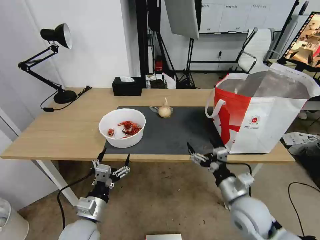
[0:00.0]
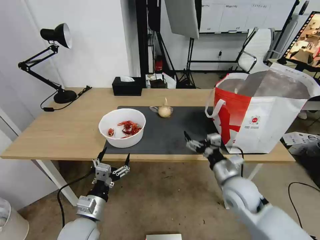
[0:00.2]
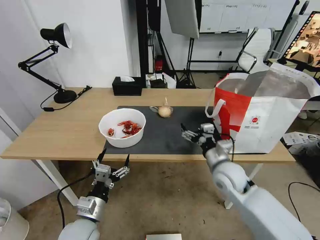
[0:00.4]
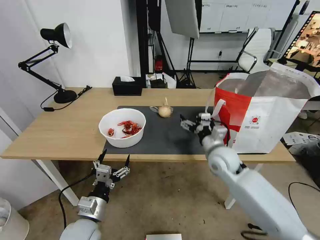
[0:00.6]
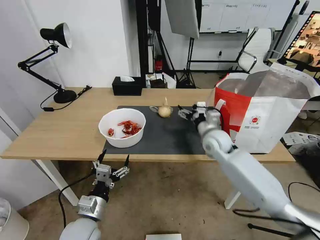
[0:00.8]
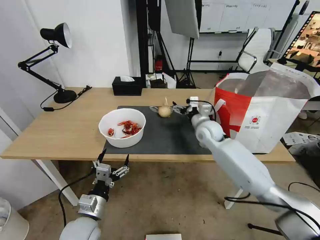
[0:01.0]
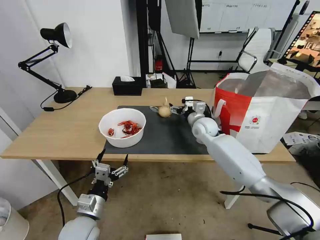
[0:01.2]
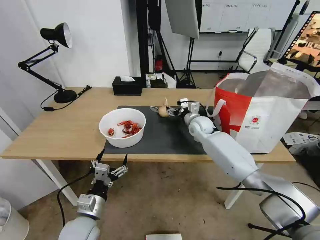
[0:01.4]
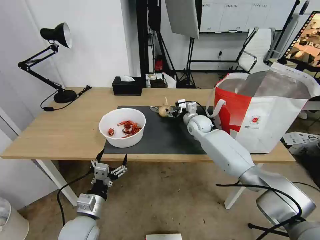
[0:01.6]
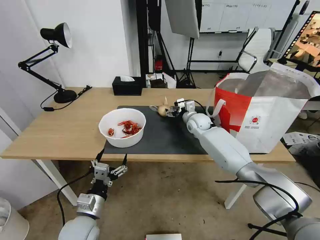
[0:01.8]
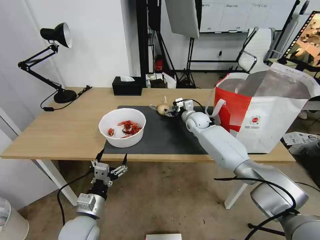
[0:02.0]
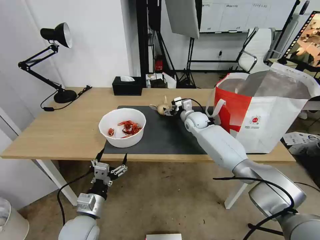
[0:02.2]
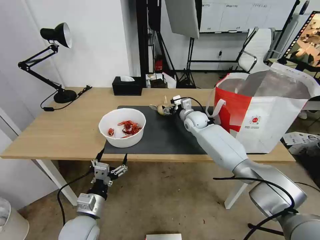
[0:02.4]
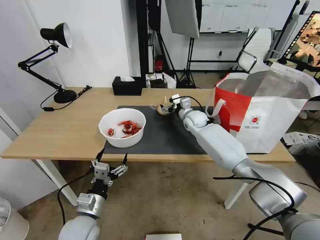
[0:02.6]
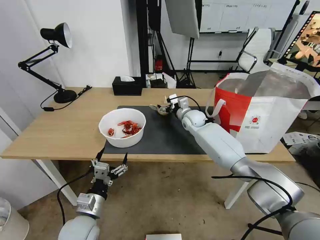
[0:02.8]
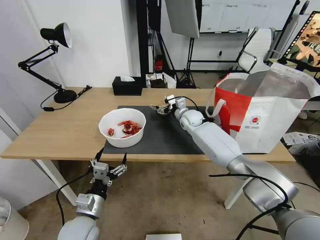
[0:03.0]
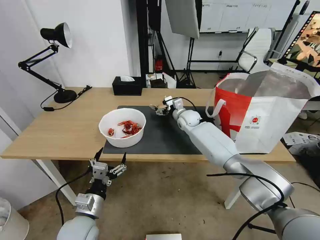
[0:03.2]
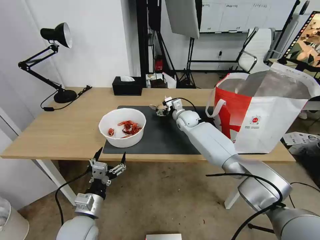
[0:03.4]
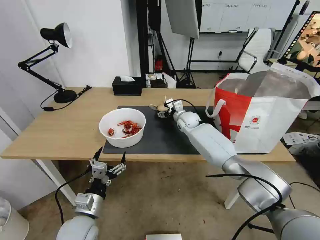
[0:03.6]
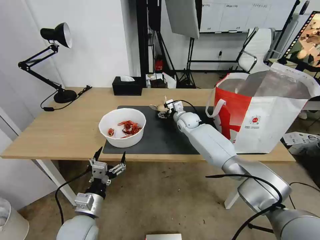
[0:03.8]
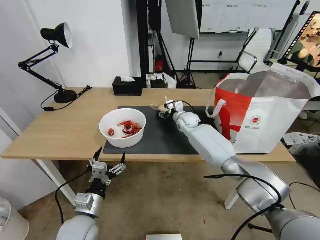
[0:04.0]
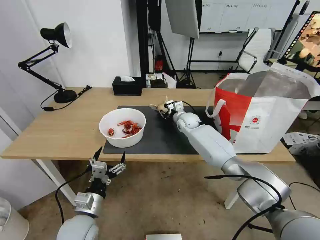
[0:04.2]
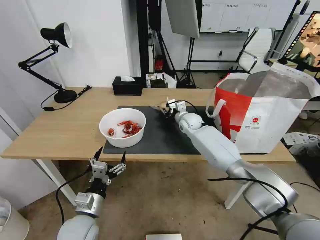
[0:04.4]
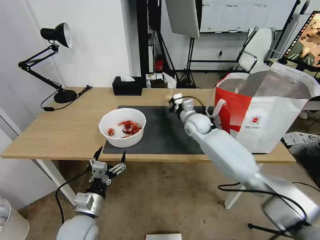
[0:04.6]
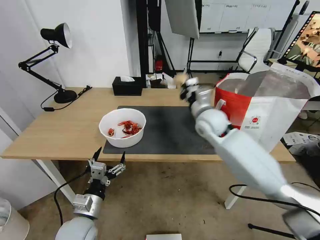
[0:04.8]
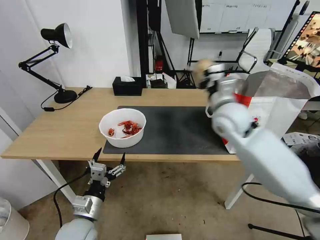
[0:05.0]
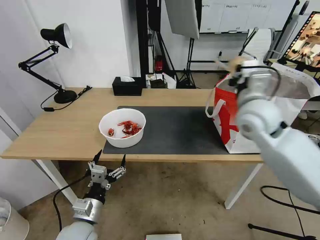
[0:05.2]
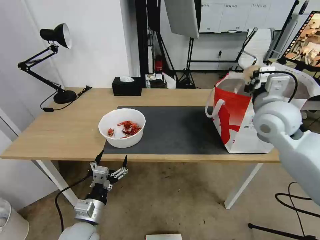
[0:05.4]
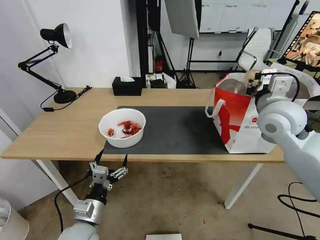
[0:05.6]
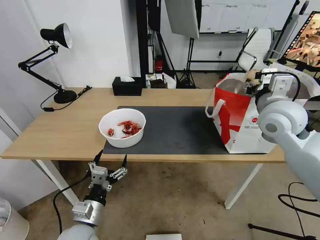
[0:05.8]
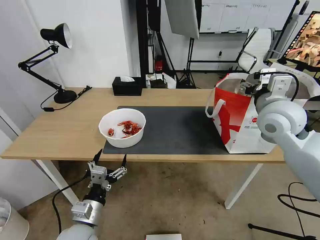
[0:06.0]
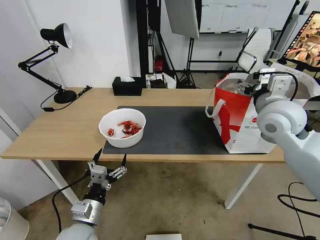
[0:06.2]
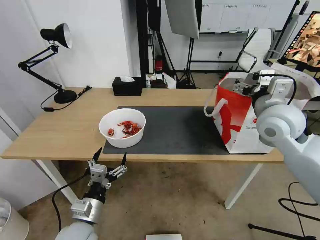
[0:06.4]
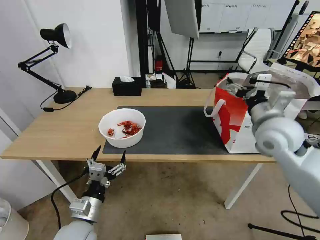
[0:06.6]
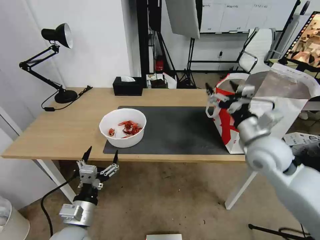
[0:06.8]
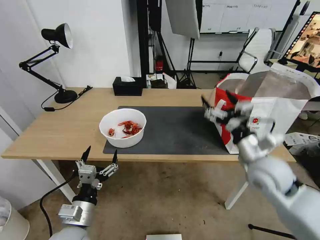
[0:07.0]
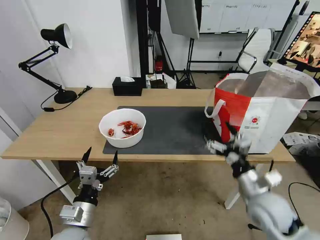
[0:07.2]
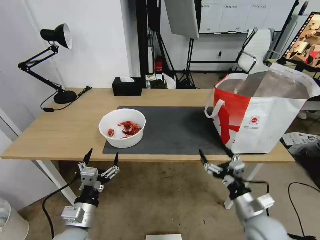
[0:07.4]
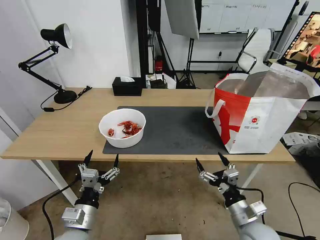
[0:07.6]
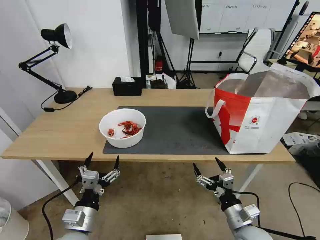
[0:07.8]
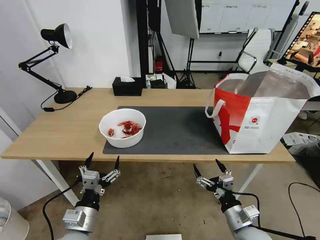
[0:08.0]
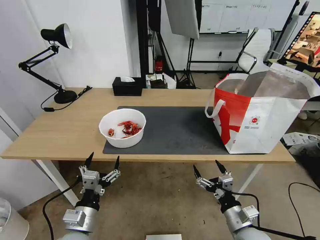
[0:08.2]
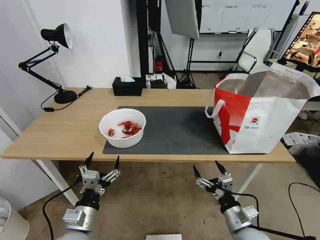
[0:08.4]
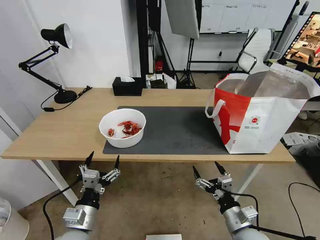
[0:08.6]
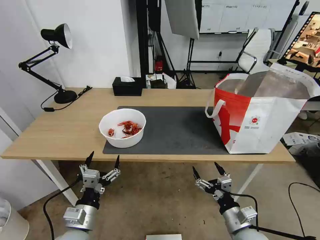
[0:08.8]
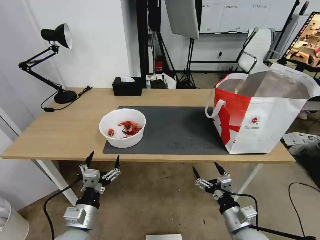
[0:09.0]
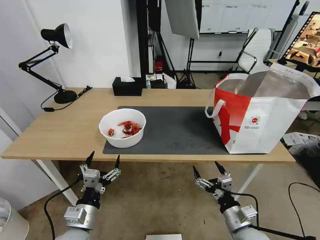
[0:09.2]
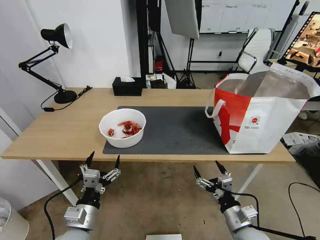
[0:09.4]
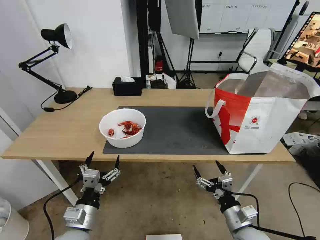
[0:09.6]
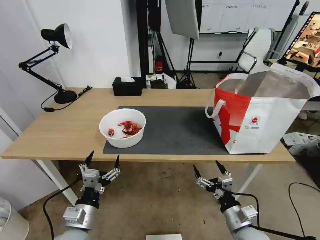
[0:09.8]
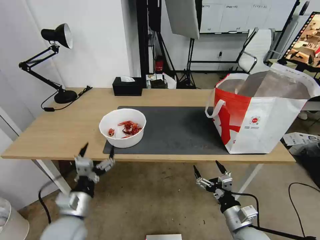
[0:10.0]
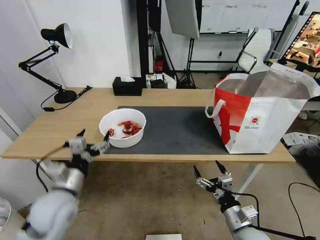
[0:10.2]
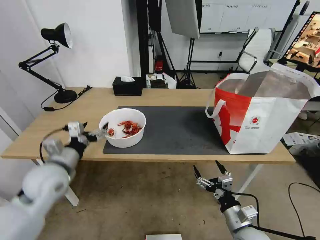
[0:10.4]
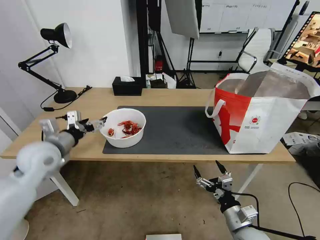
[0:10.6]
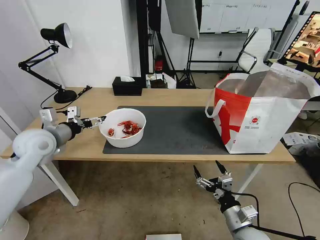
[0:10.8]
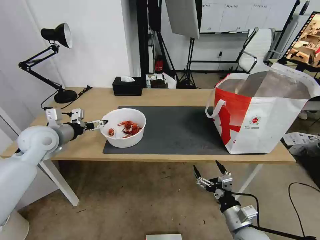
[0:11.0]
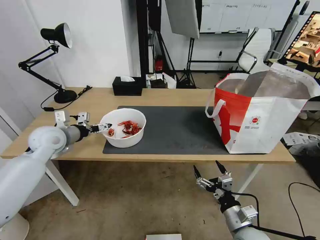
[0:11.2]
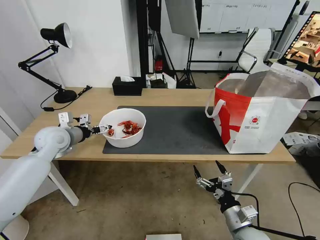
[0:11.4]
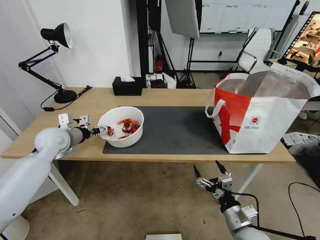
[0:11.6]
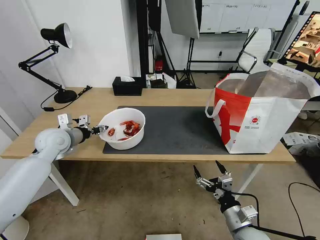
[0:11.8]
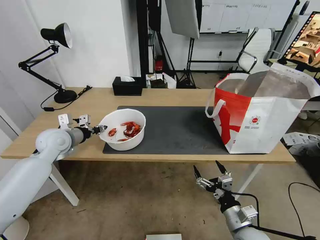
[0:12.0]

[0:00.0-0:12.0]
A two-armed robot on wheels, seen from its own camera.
Task of the whole recording: Pick up the trash from the table and place it into the takeout bag.
0:00.0 to 0:01.6: The right gripper travels forward by approximately 35 cm.
0:01.6 to 0:03.0: There are only small adjustments of the grippers.
0:03.0 to 0:04.4: The right gripper closes.
0:04.4 to 0:06.0: The right gripper is displaced backward, upward and to the right by about 35 cm, and opens up.
0:06.0 to 0:07.6: The right gripper goes approximately 35 cm downward and backward.
0:07.6 to 0:09.0: The grippers stay close to where they were, moving slightly.
0:09.0 to 0:10.4: The left gripper is displaced forward, upward and to the left by approximately 20 cm.
0:10.4 to 0:12.0: The left gripper moves forward, roughly 10 cm, and closes its fingers.

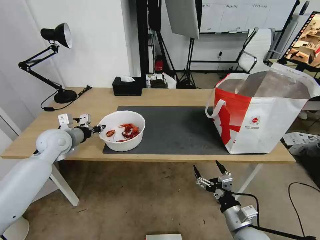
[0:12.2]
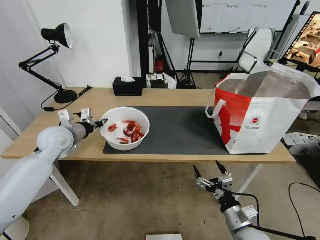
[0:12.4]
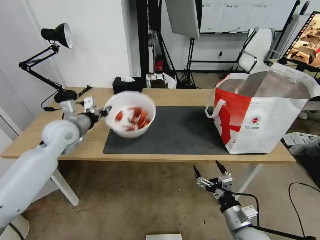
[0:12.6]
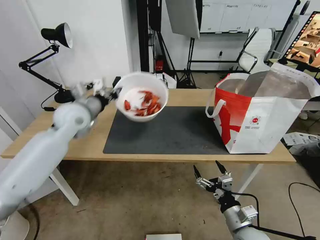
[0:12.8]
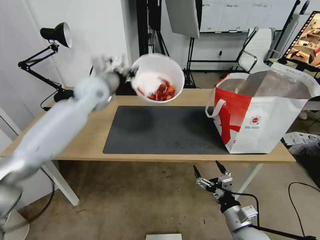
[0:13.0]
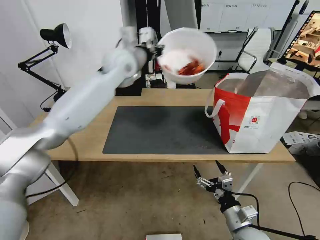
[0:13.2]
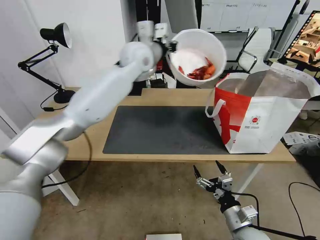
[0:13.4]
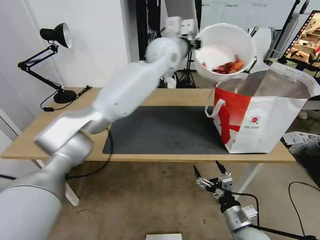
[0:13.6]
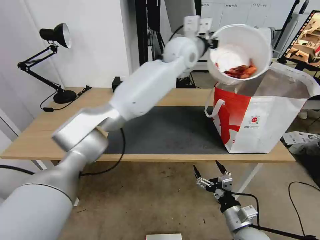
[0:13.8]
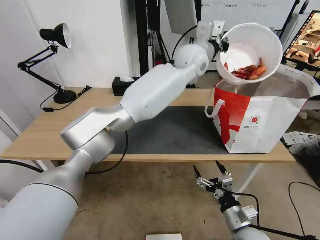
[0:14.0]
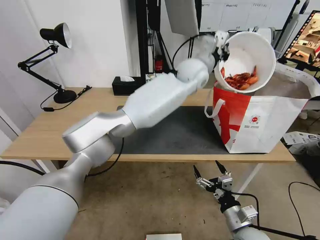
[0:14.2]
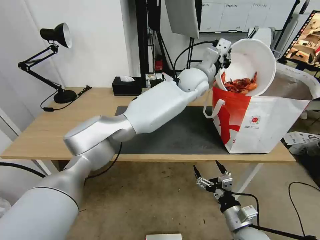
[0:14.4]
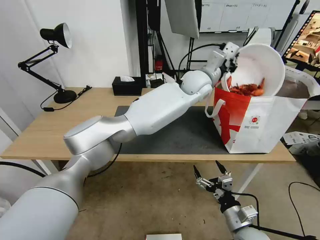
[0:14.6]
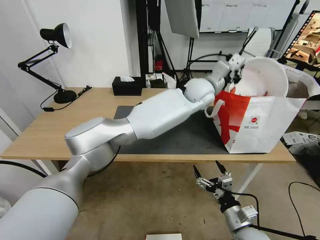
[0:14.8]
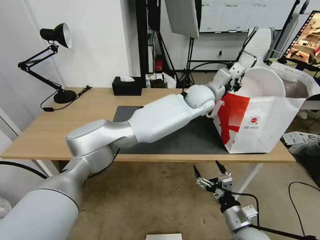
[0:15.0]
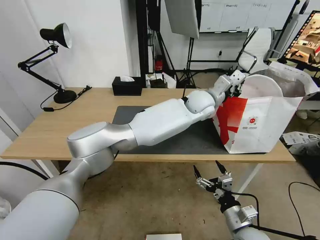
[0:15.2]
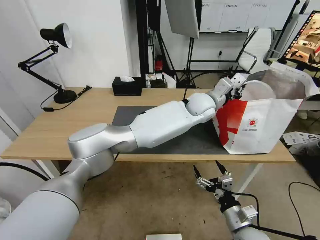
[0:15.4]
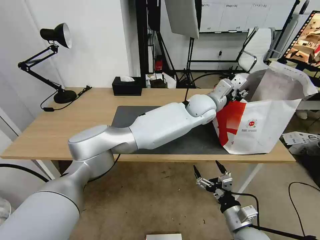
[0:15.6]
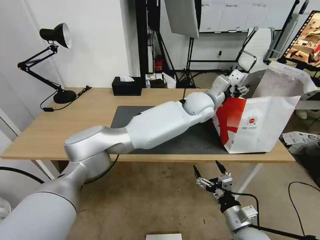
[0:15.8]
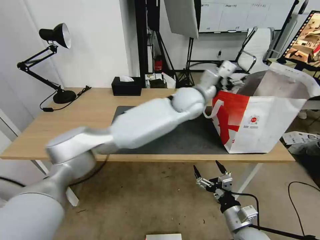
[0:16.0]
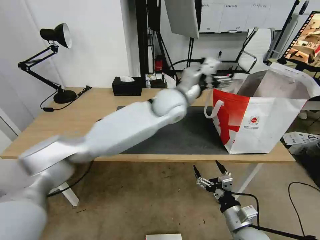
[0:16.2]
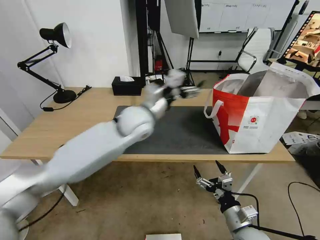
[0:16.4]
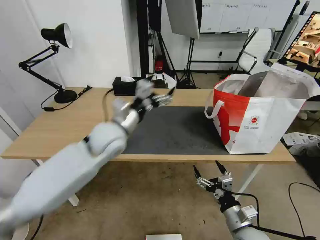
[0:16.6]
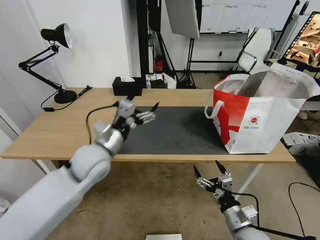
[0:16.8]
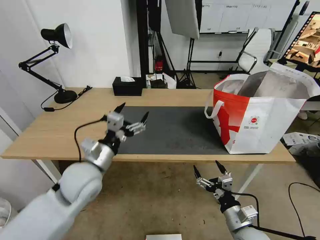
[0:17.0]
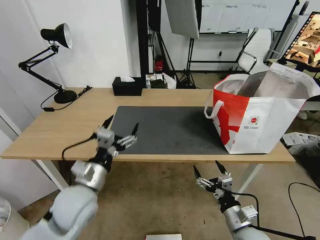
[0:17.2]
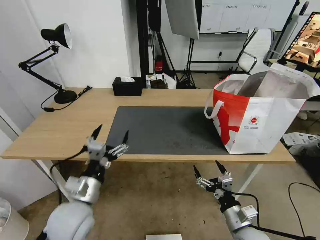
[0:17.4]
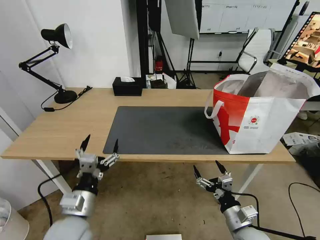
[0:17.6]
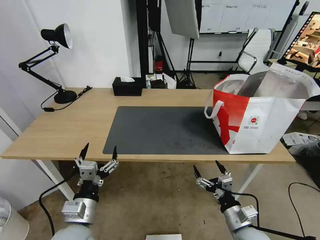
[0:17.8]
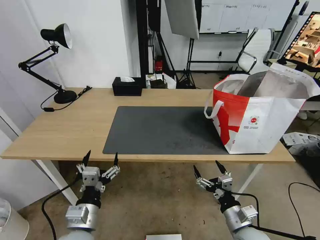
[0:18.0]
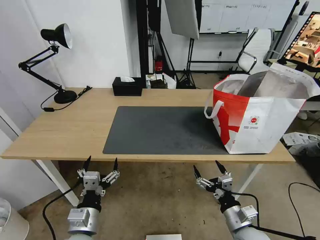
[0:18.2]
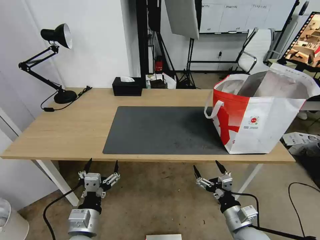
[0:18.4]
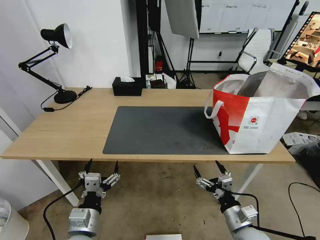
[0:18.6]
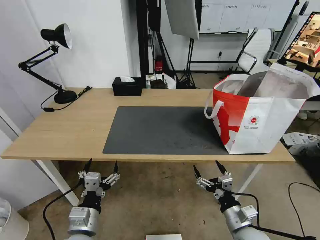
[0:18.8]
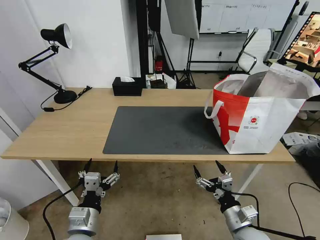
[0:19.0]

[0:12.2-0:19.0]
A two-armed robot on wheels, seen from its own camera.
Task of the whole recording: Pick up the trash from the table and place it into the takeout bag.
0:12.2 to 0:13.6: The left gripper goes roughly 40 cm to the right, upward and forward.
0:13.6 to 0:15.0: The left gripper heads downward and to the right, covering some 15 cm.
0:15.0 to 0:16.2: The left gripper is displaced to the left and backward by roughly 15 cm, and opens.
0:16.2 to 0:17.6: The left gripper moves backward, to the left and downward, roughly 40 cm.
0:17.6 to 0:19.0: The left gripper ends up about 5 cm from where it was.

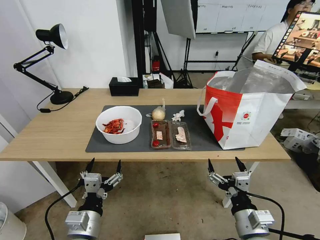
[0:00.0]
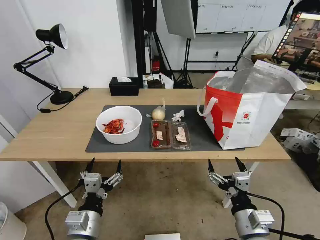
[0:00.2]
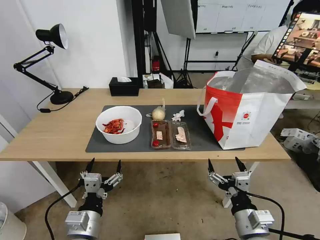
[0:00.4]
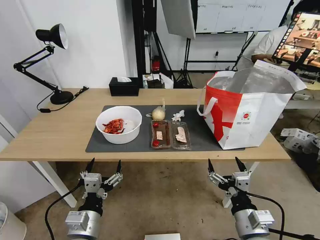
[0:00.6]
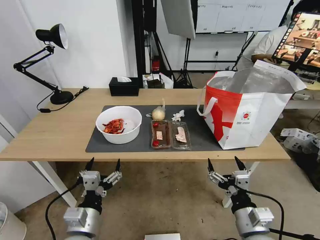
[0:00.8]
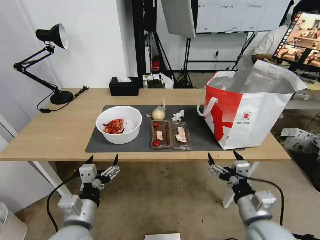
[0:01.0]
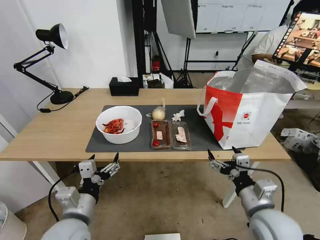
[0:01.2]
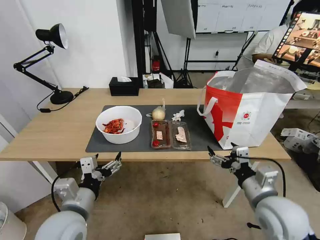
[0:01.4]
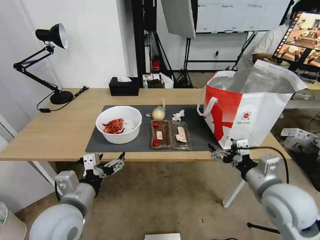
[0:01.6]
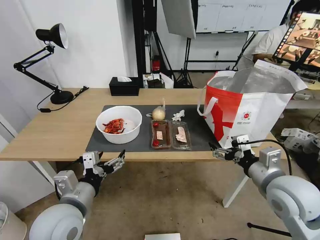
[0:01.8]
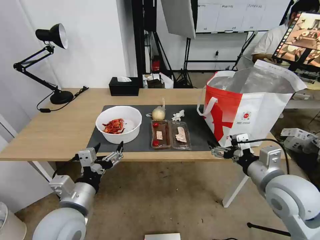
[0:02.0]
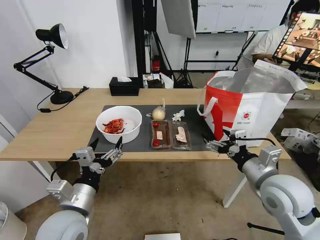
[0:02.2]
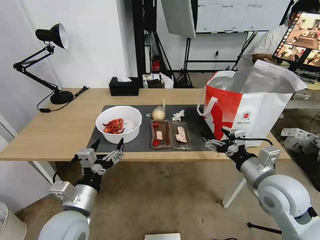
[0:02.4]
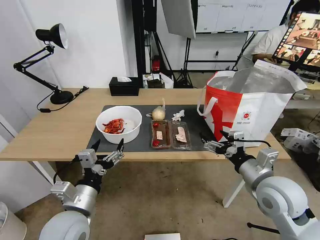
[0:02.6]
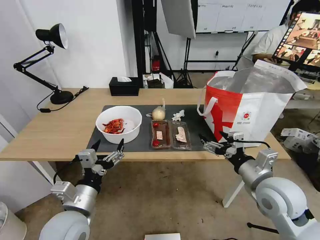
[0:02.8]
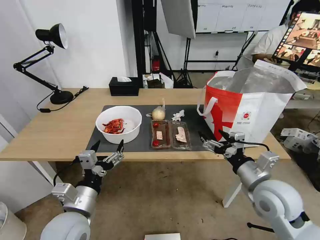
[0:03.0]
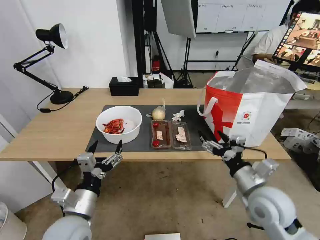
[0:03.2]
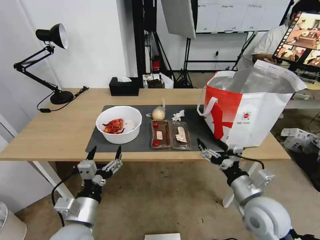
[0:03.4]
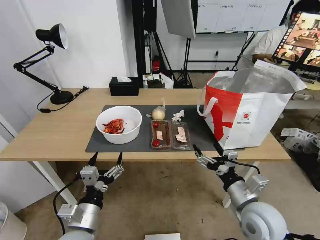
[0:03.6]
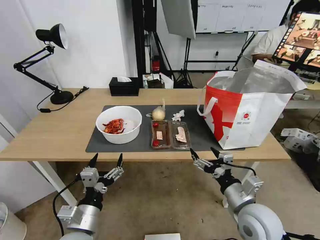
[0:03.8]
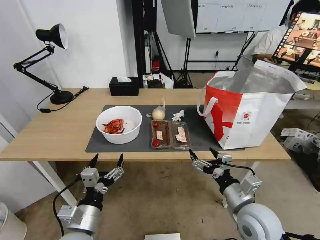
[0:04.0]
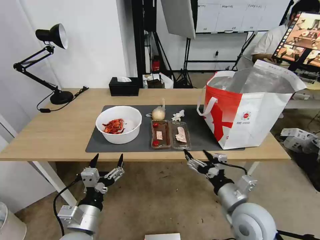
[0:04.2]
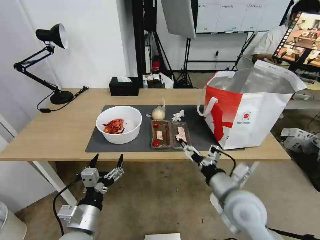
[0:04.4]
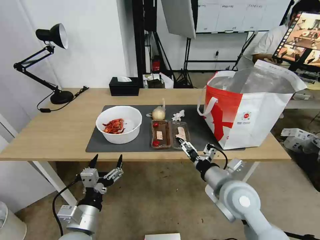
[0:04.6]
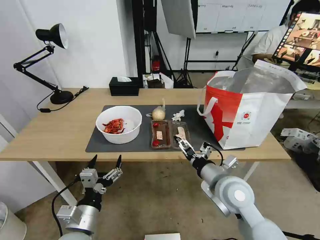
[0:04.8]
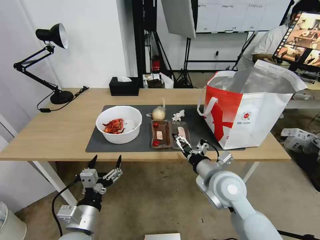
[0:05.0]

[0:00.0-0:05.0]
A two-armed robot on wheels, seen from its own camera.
Task of the whole recording: Pick up the trash from the table and place it into the takeout bag.
0:01.6 to 0:03.4: The two grippers go about 5 cm downward.
0:03.4 to 0:05.0: The right gripper is displaced to the left and forward by about 10 cm.
